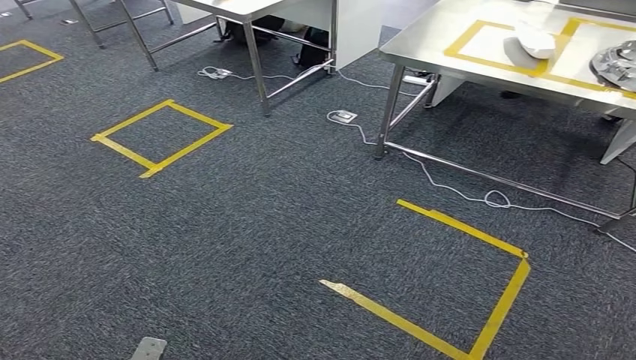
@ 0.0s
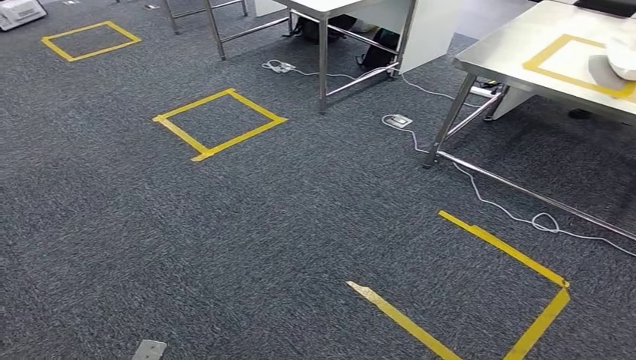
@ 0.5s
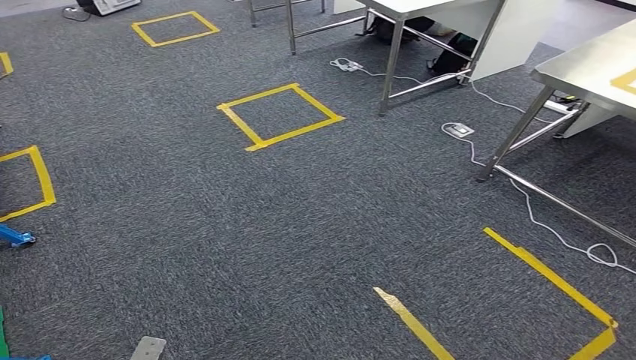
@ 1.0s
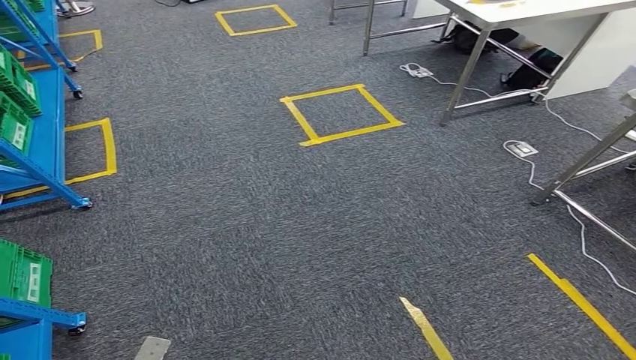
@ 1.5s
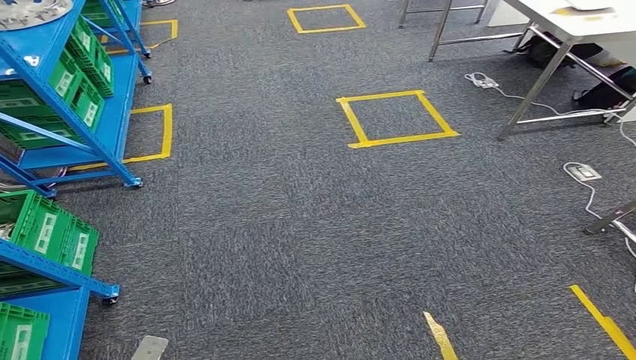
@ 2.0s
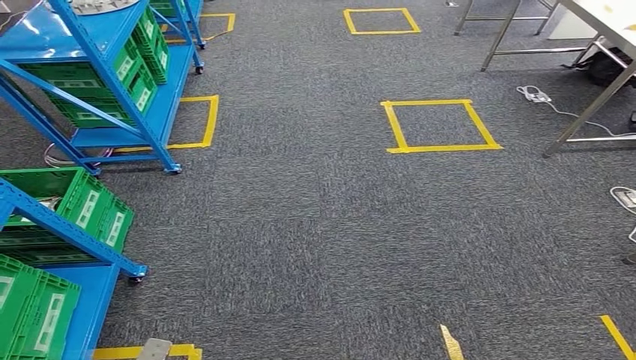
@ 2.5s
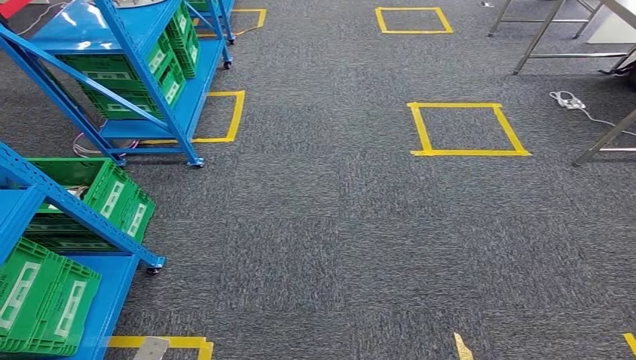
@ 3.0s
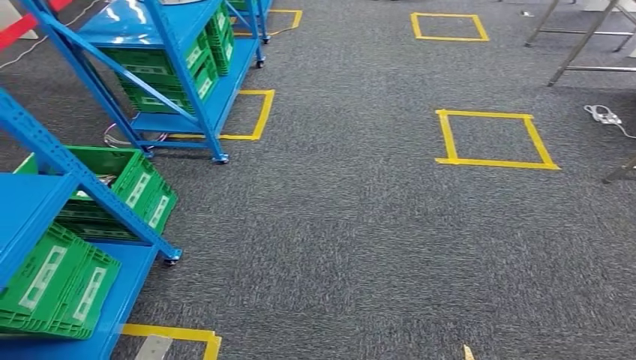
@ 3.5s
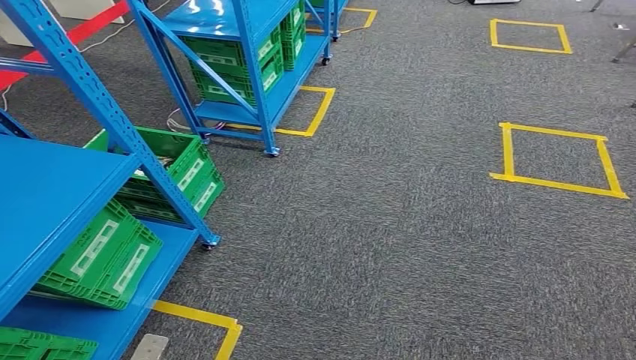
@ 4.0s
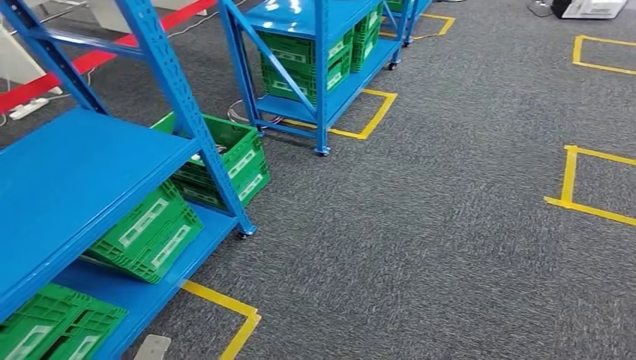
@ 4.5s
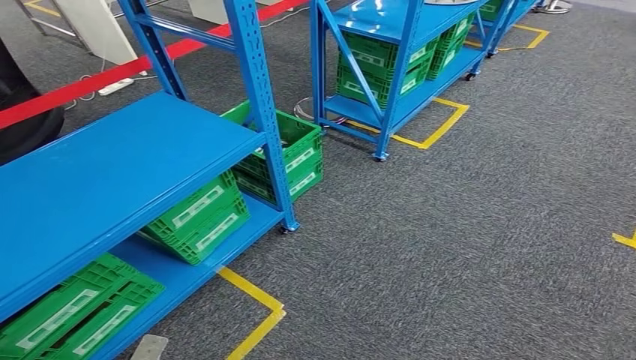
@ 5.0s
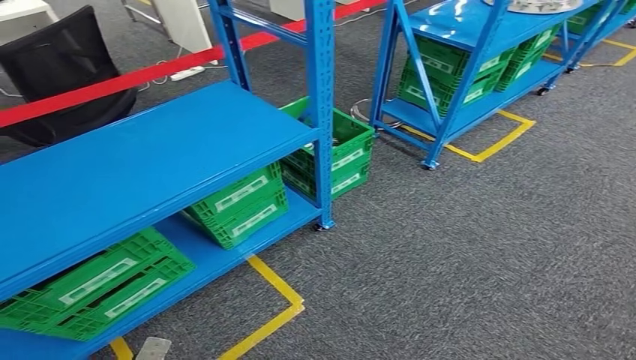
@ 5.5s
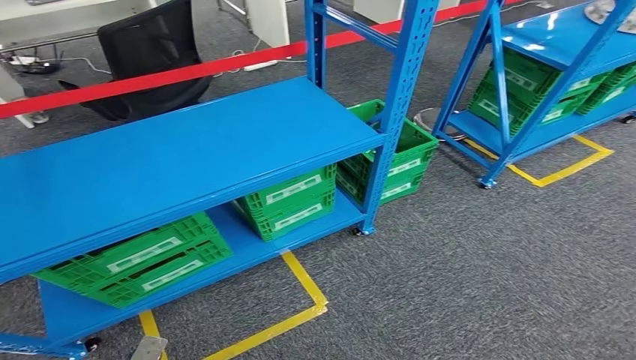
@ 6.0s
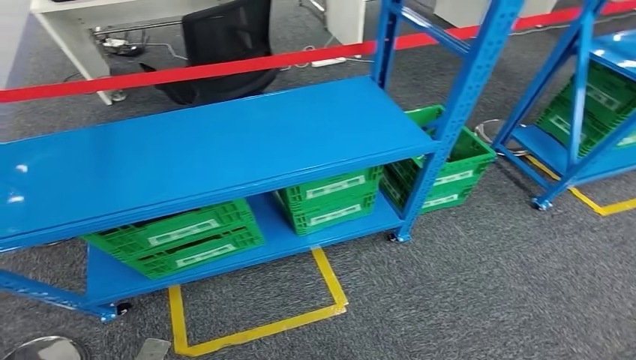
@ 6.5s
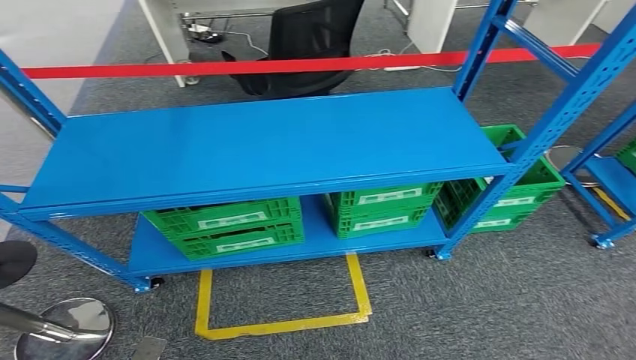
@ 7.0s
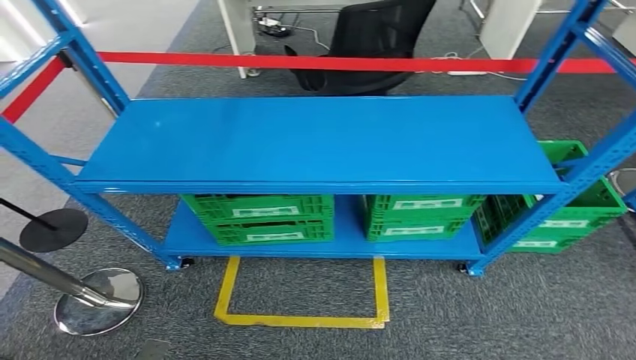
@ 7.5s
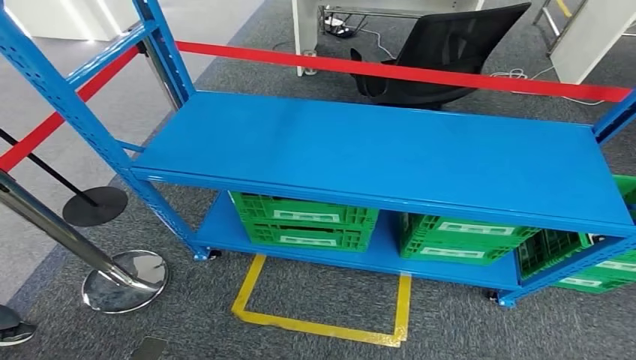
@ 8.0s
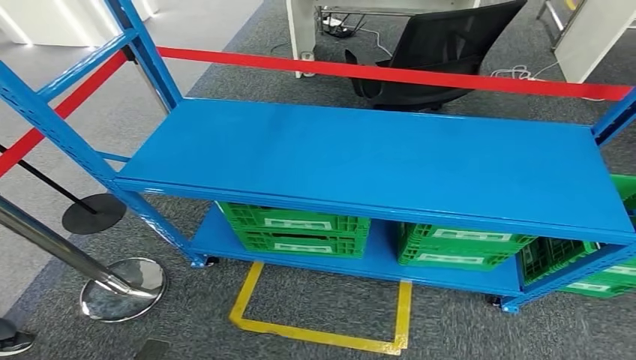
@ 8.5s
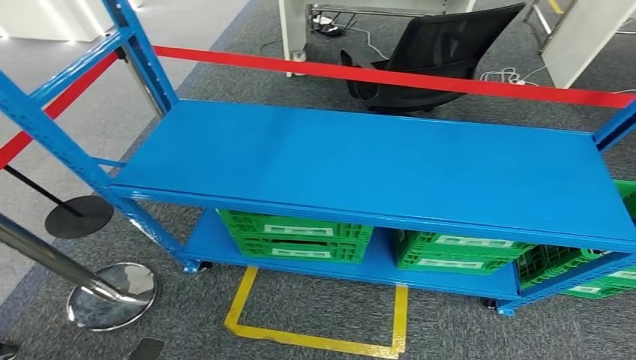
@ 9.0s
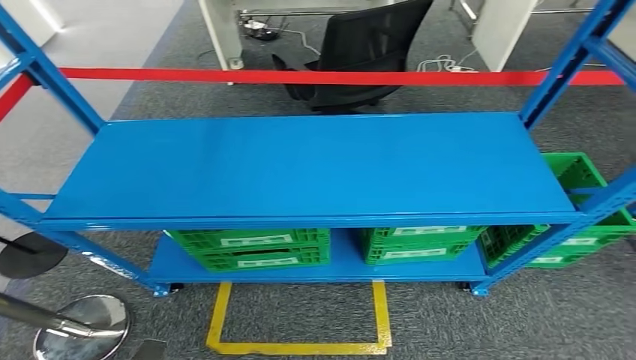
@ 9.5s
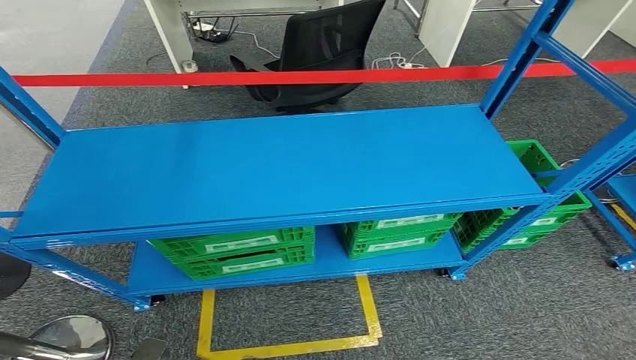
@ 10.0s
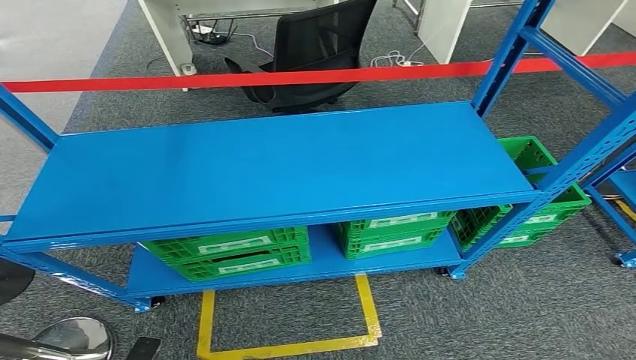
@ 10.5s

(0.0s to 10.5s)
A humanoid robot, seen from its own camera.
Step, 0.0s - 10.5s: Return to the initial position at the workbench.
